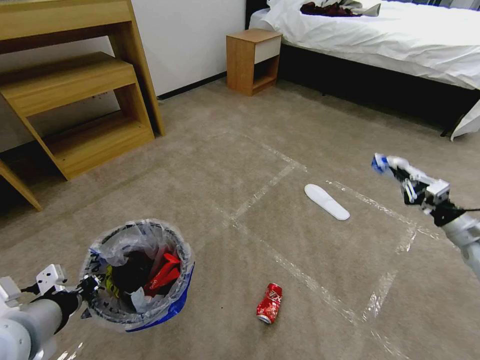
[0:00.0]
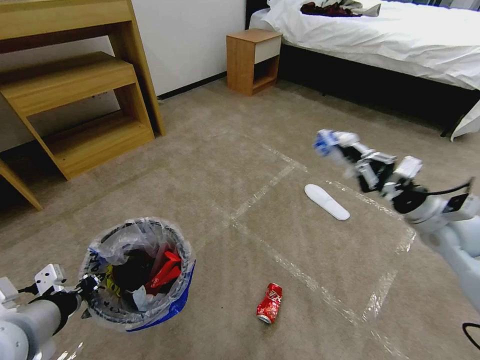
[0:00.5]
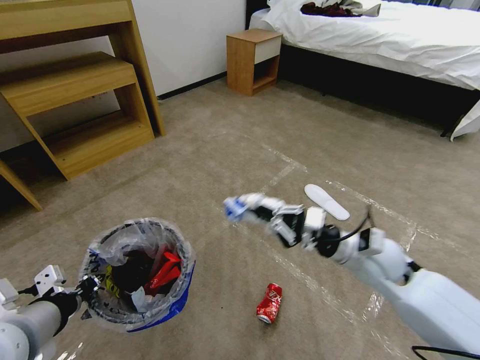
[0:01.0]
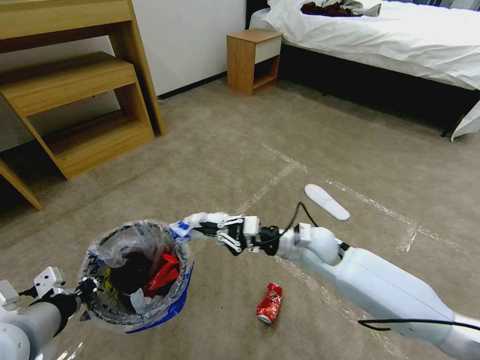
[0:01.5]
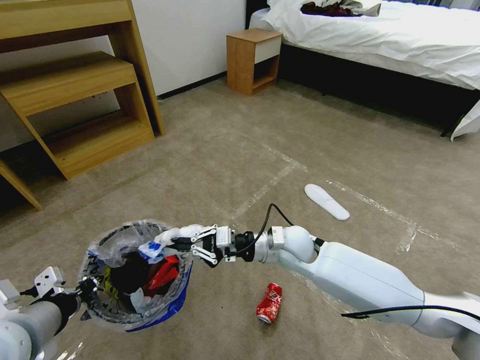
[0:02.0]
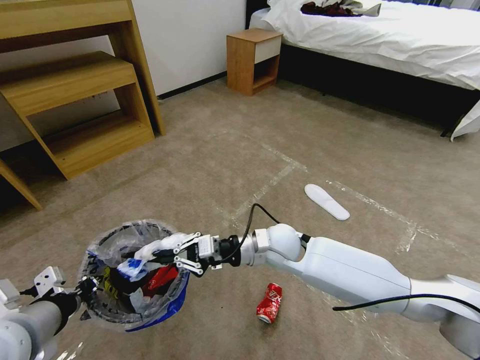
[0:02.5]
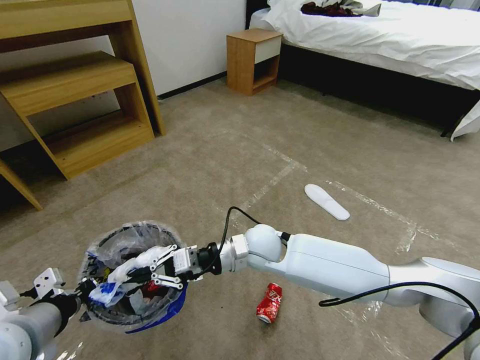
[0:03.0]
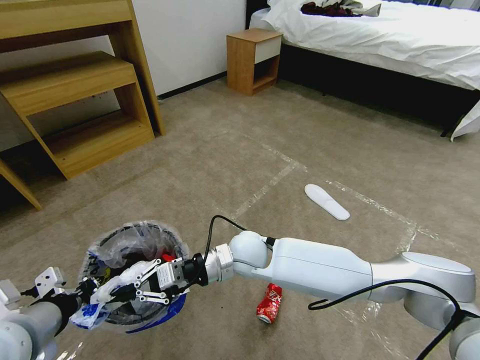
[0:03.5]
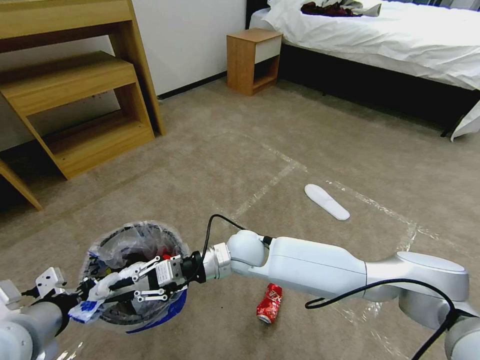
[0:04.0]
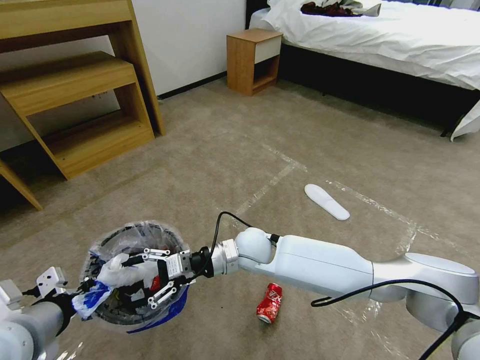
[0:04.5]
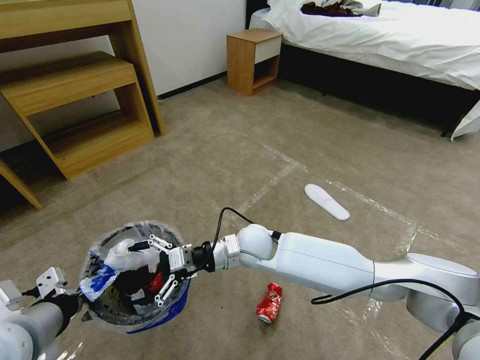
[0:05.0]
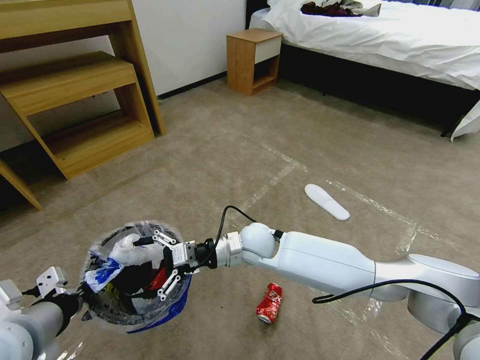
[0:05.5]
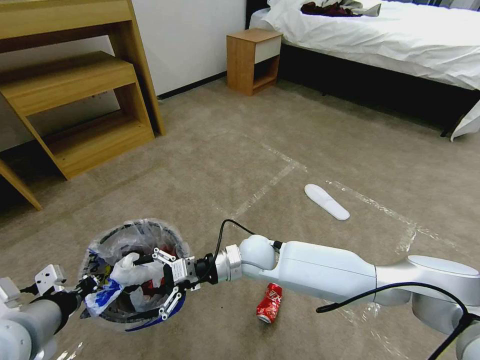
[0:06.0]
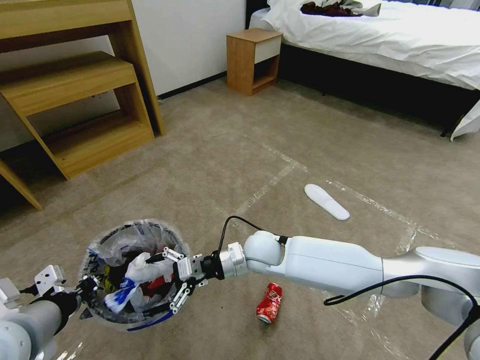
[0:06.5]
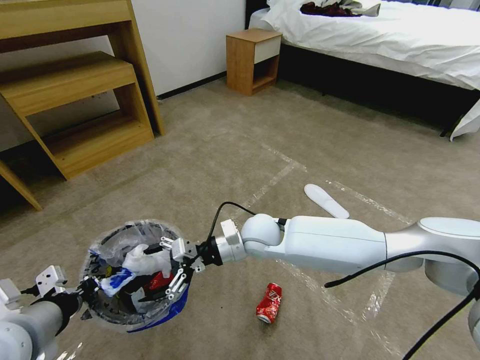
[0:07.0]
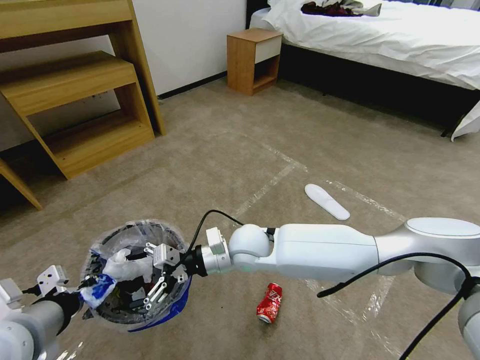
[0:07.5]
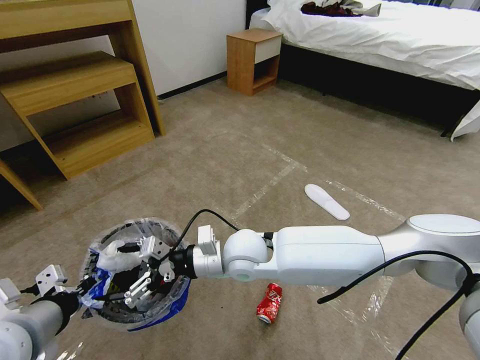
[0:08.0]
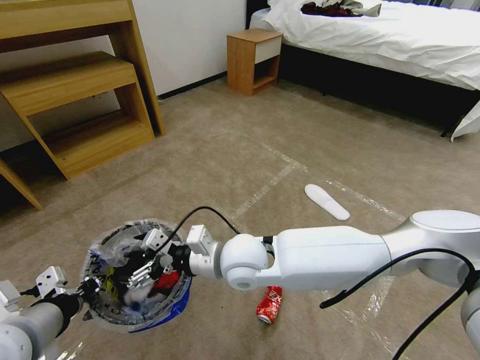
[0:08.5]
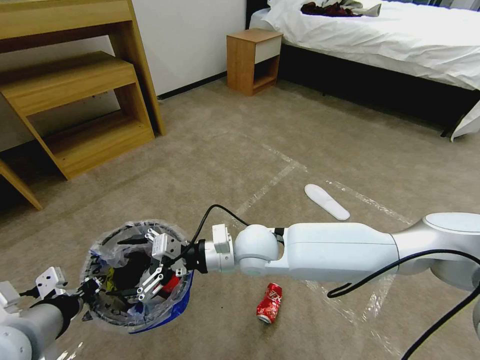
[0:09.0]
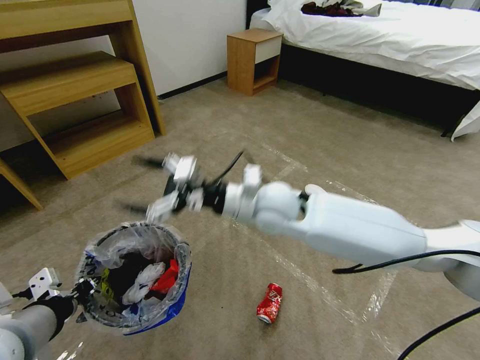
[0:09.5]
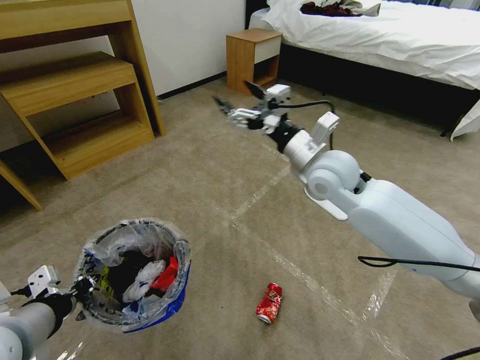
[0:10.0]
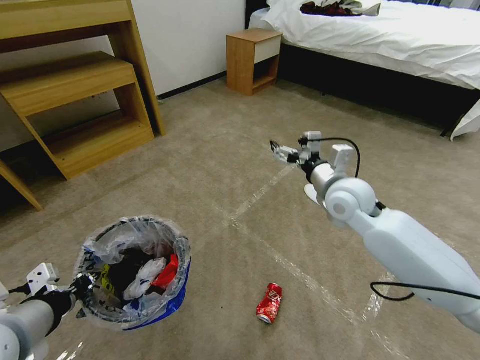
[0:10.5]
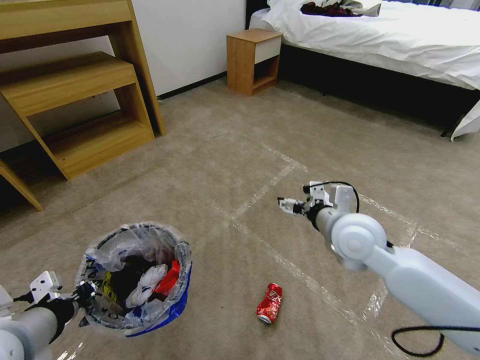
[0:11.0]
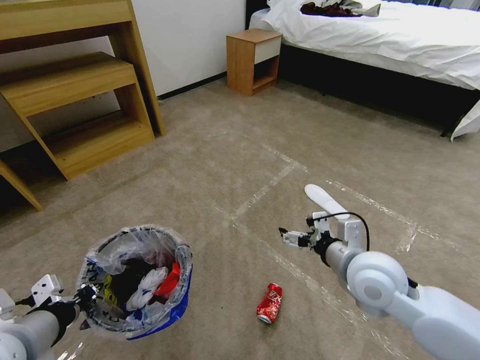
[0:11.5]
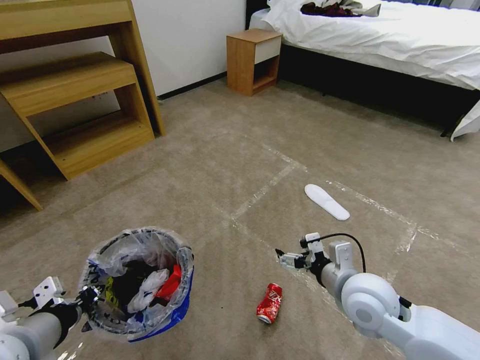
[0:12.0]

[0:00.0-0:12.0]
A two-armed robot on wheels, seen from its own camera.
Task of the whole recording: Pick up the trash bin and place the garbage on the floor into it.
0.0 to 2.0 s: The right gripper shifts approximately 40 cm to the left.
2.0 to 4.0 s: The right gripper moves to the left, some 10 cm.
4.0 to 6.0 s: The right gripper opens up.
6.0 to 8.0 s: The right gripper heads upward, covering roughly 5 cm.
8.0 to 10.0 s: The right gripper heads to the right, upward and forward, covering approximately 25 cm.
10.0 to 12.0 s: The right gripper is displaced backward and downward by roughly 25 cm.

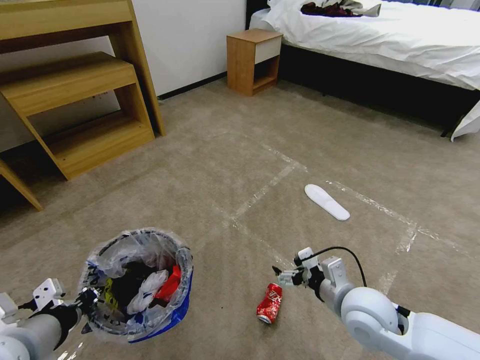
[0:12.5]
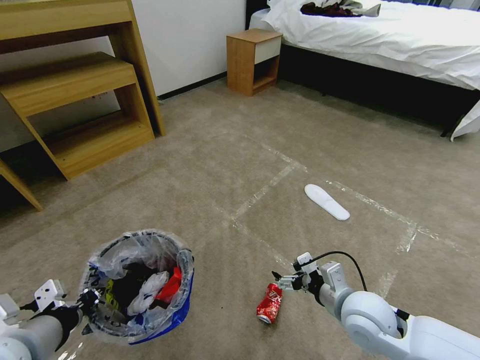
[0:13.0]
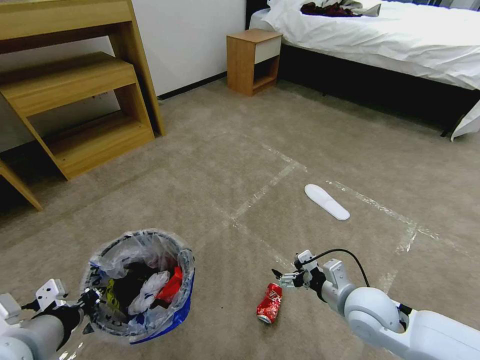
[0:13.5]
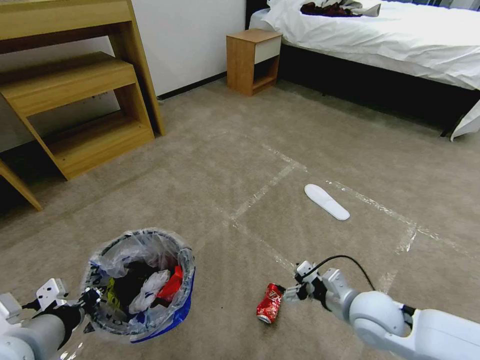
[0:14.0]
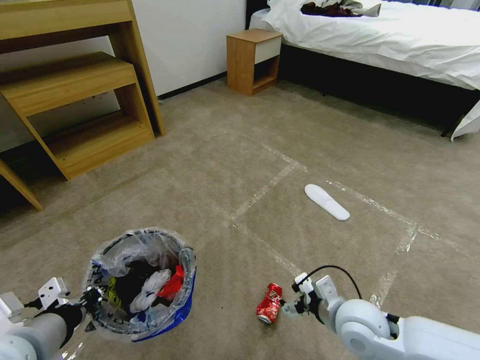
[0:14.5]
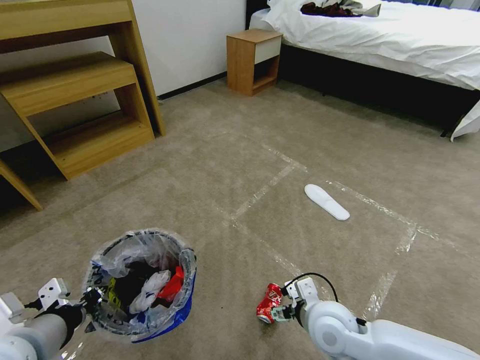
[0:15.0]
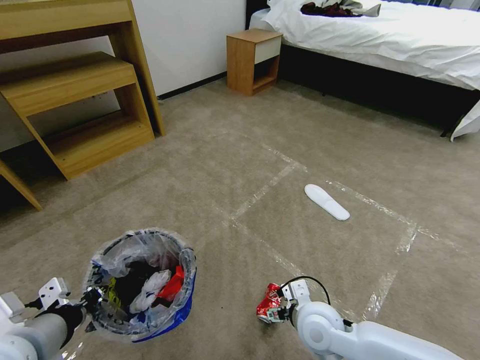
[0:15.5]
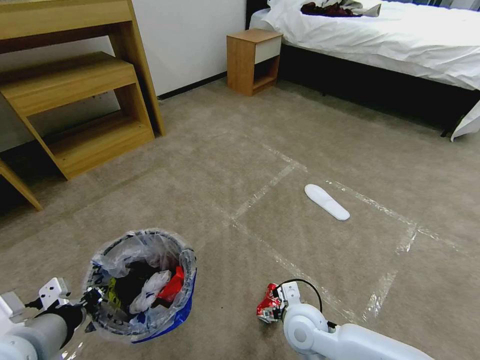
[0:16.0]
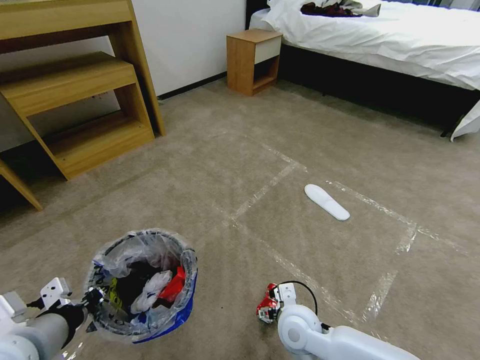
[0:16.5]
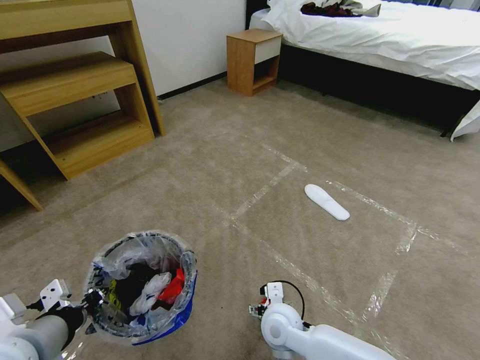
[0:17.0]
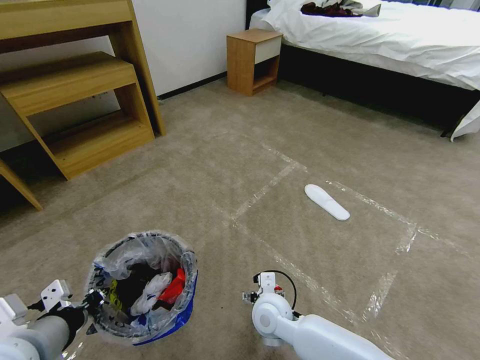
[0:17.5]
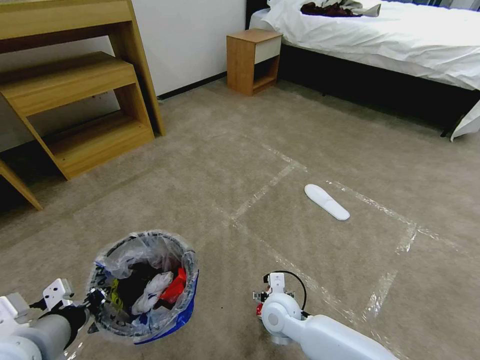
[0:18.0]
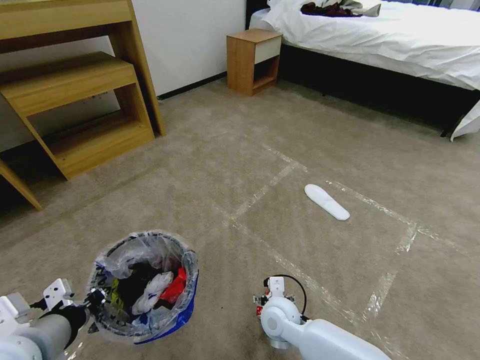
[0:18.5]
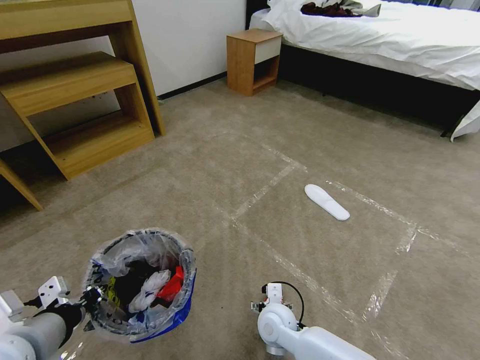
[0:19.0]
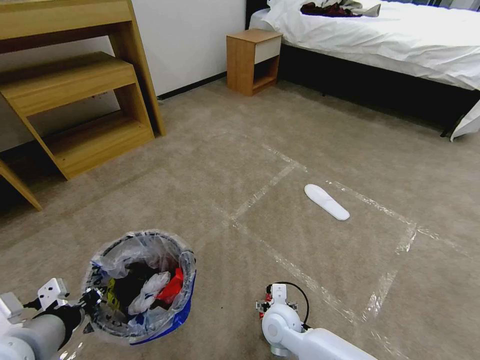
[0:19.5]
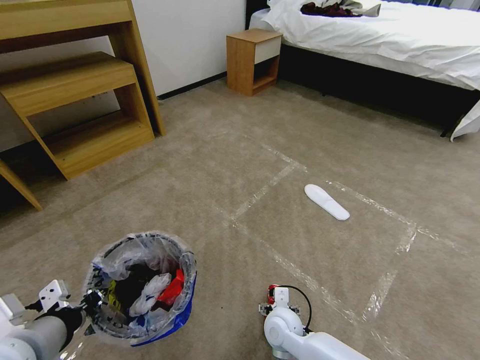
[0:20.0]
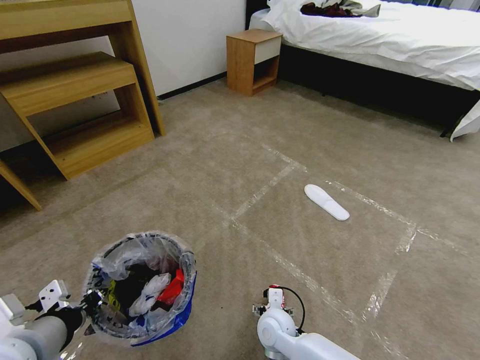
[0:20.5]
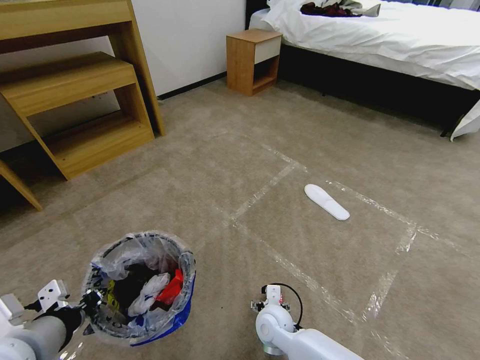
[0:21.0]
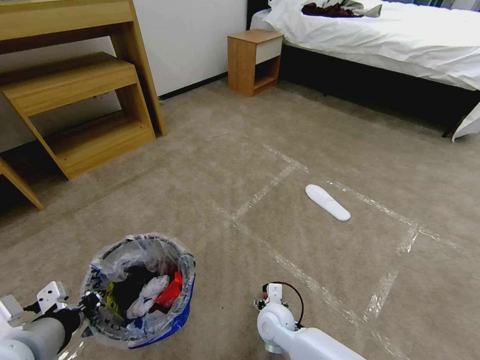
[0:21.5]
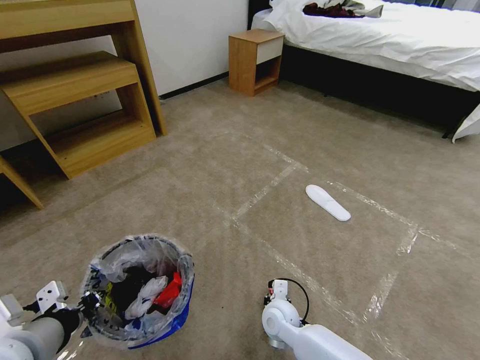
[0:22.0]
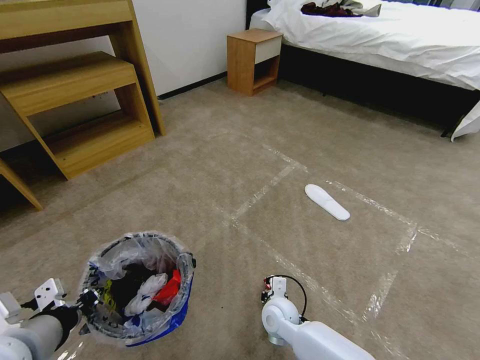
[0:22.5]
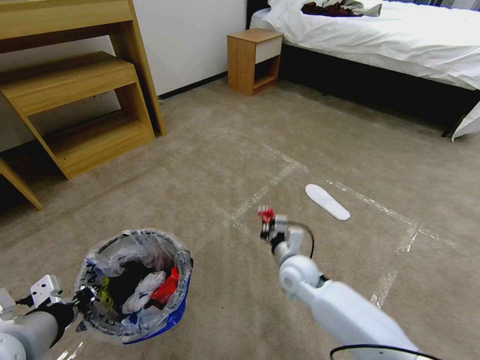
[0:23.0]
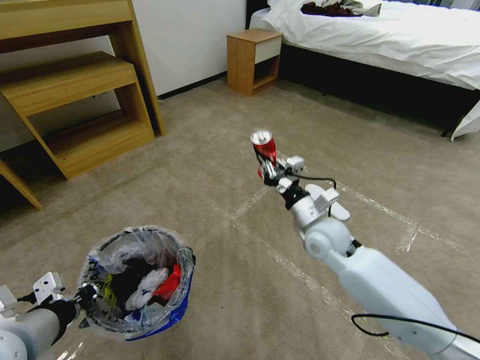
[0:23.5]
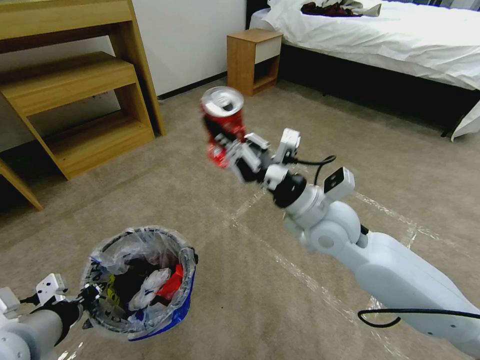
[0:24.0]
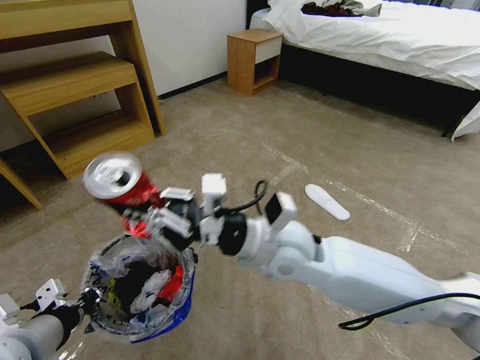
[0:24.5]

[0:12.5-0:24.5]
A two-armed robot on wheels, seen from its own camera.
Task of the whole recording: Pick up the trash bin and place the garbage on the floor into it.
12.5 to 14.5 s: There are only small adjustments of the grippers.
14.5 to 16.5 s: The right gripper travels to the left and downward by roughly 15 cm.
16.5 to 18.5 s: The right gripper ends up roughly 5 cm from where it was.
18.5 to 20.5 s: The grippers move only a little.
20.5 to 22.5 s: The right gripper closes up.
22.5 to 24.5 s: The right gripper shifts roughly 30 cm upward.

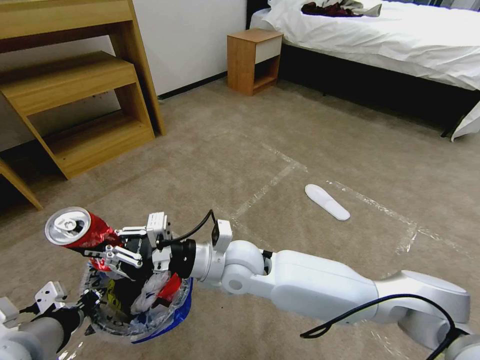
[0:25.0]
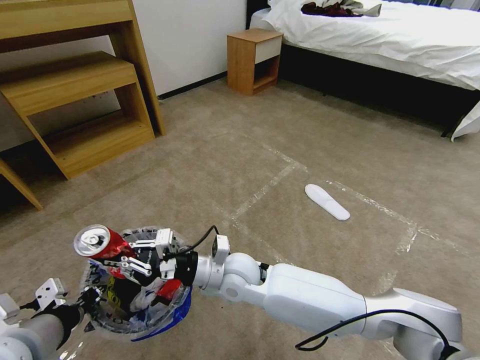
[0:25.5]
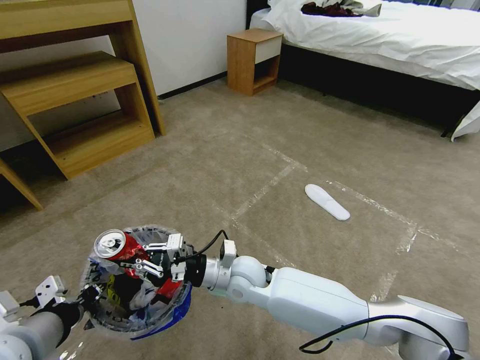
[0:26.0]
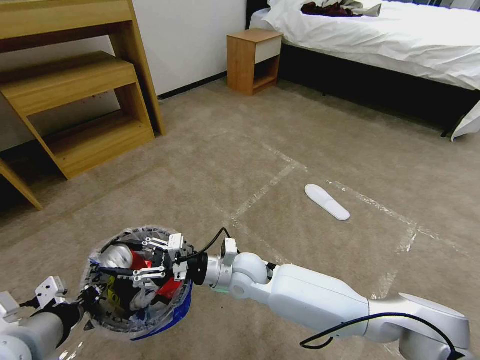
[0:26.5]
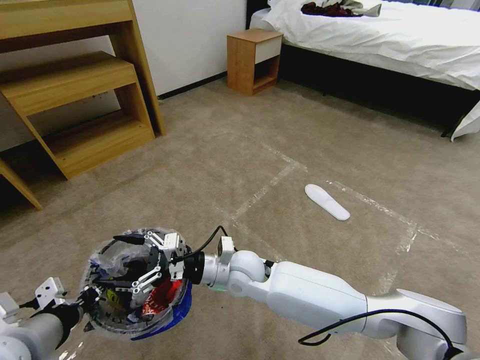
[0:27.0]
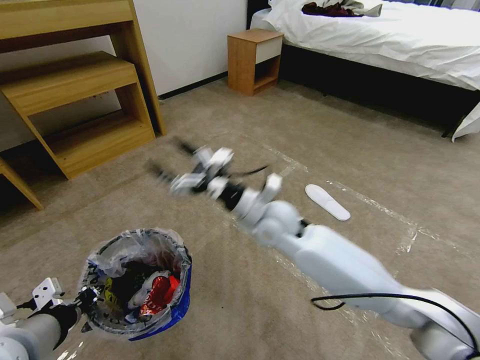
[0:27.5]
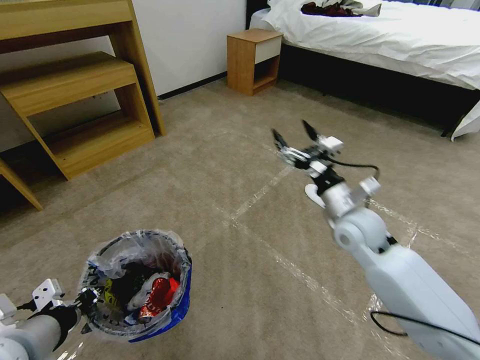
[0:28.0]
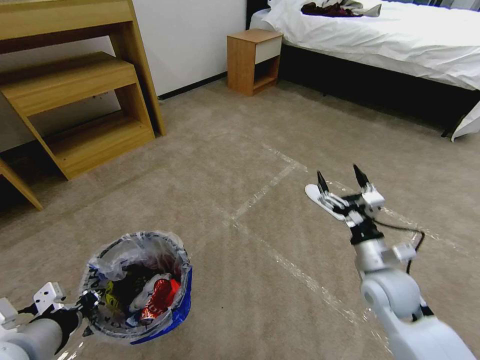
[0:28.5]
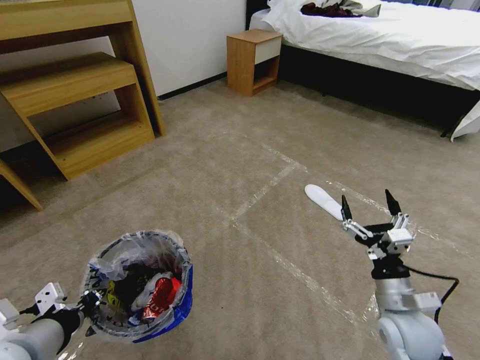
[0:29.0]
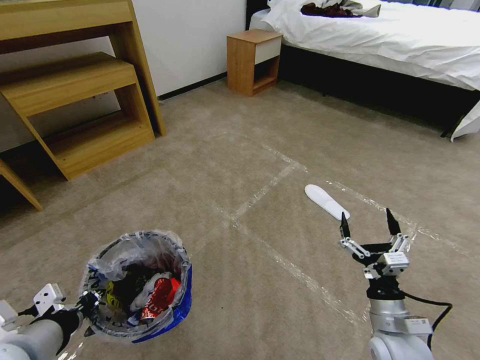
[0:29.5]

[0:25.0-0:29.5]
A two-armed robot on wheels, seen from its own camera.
Task of the whole recording: Pick up the trash bin and place the garbage on the floor into it.
25.0 to 27.0 s: The right gripper shifts approximately 10 cm downward, and opens.
27.0 to 29.5 s: The right gripper is displaced to the right and backward by some 35 cm.
